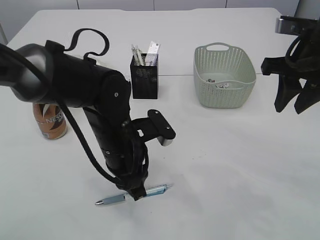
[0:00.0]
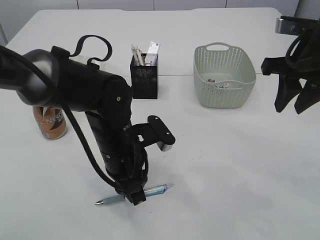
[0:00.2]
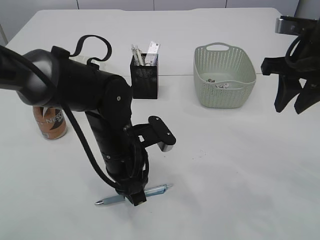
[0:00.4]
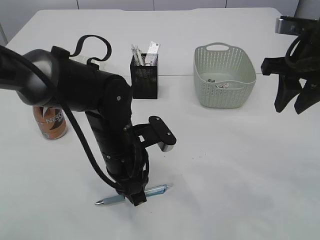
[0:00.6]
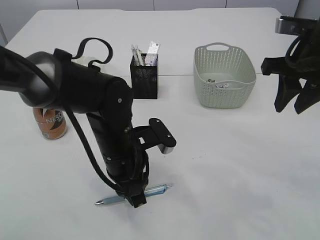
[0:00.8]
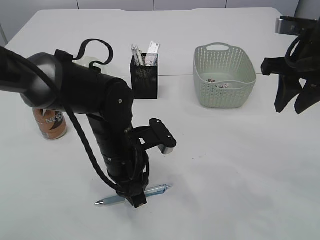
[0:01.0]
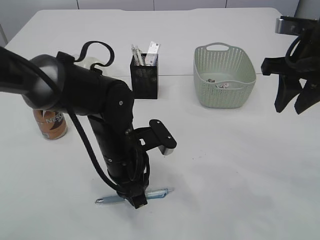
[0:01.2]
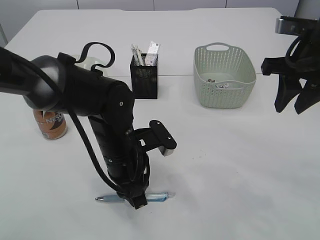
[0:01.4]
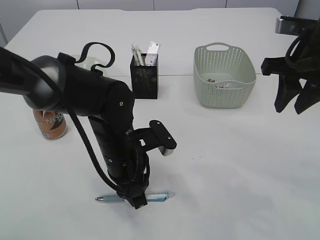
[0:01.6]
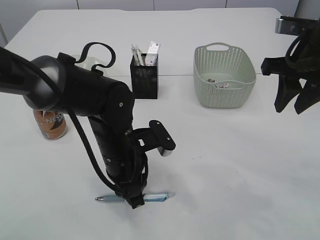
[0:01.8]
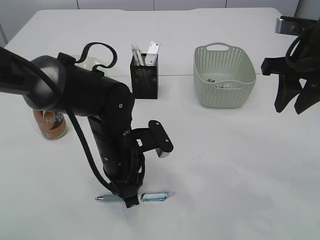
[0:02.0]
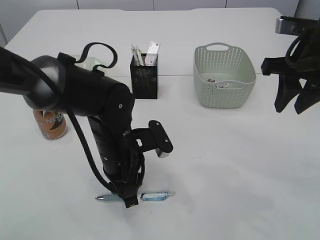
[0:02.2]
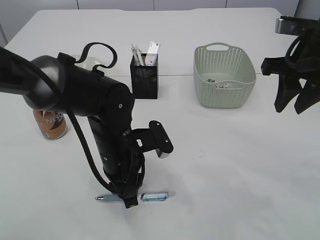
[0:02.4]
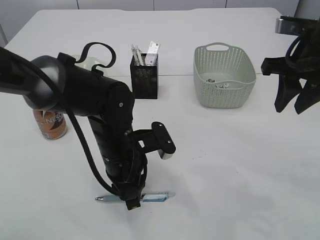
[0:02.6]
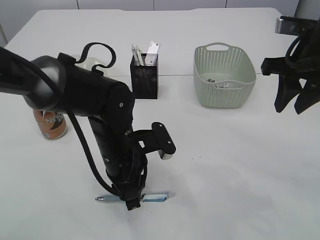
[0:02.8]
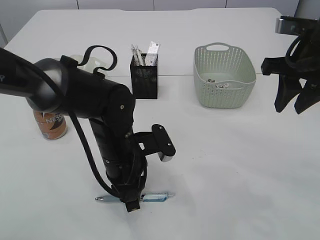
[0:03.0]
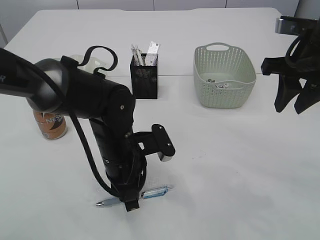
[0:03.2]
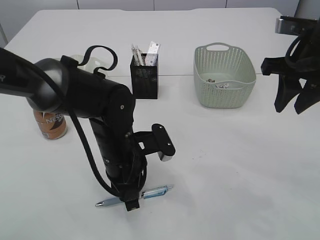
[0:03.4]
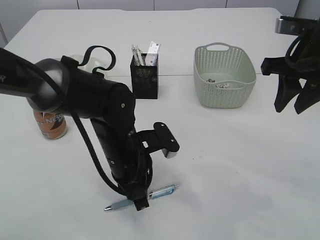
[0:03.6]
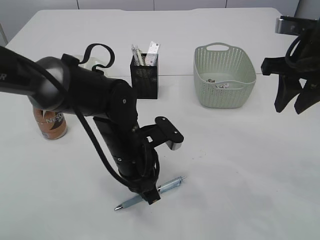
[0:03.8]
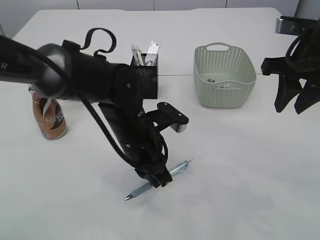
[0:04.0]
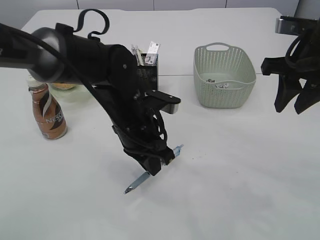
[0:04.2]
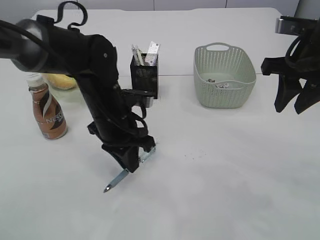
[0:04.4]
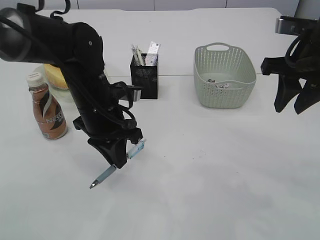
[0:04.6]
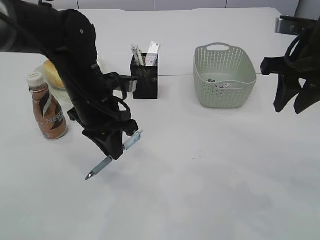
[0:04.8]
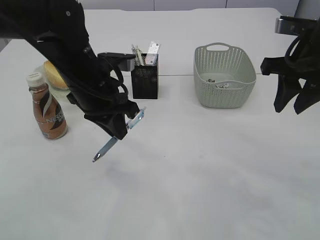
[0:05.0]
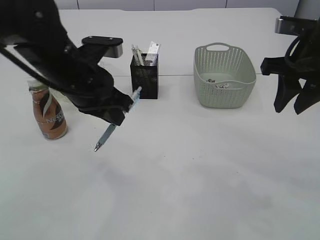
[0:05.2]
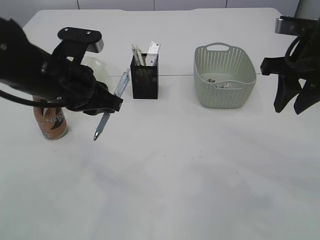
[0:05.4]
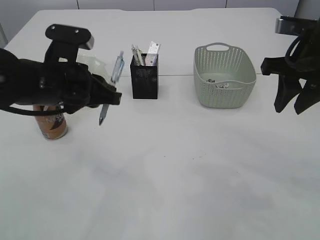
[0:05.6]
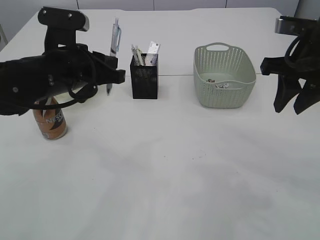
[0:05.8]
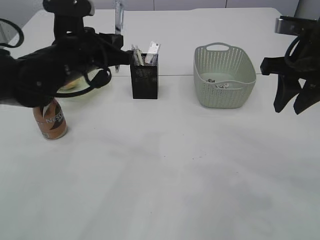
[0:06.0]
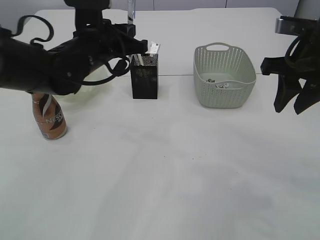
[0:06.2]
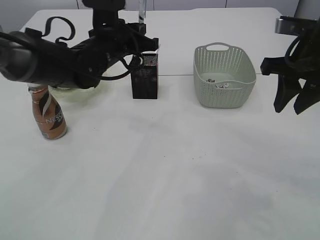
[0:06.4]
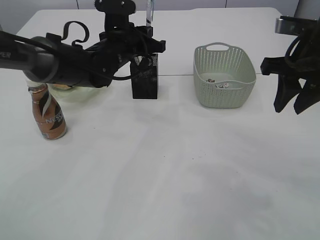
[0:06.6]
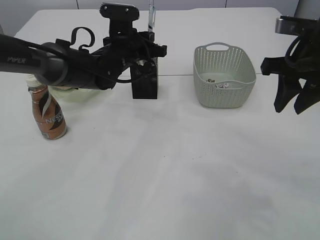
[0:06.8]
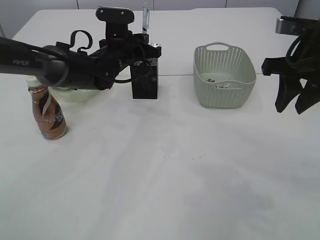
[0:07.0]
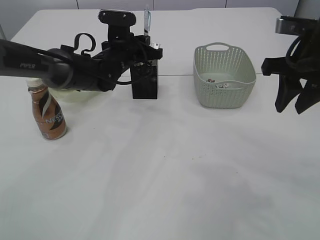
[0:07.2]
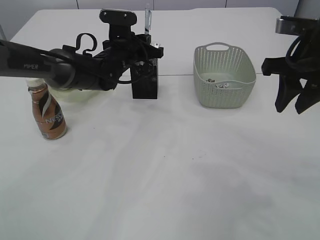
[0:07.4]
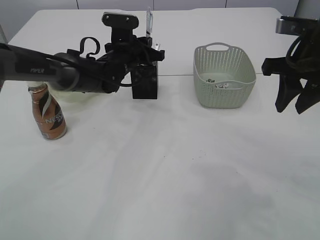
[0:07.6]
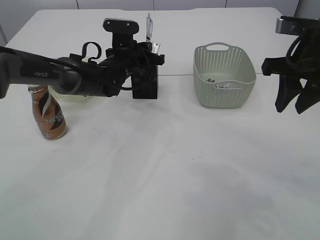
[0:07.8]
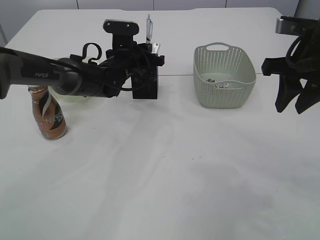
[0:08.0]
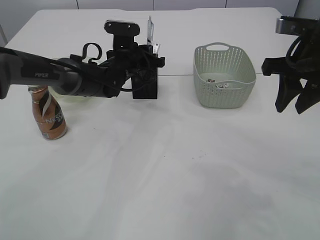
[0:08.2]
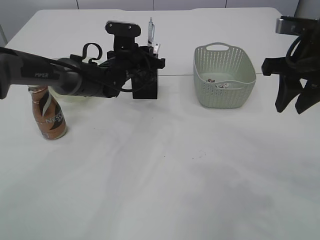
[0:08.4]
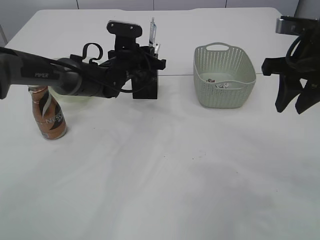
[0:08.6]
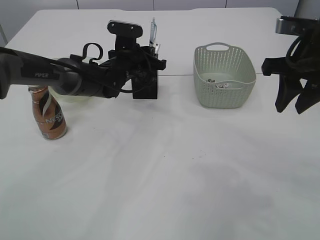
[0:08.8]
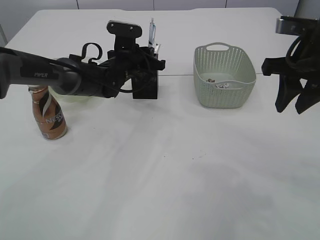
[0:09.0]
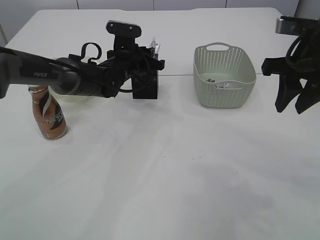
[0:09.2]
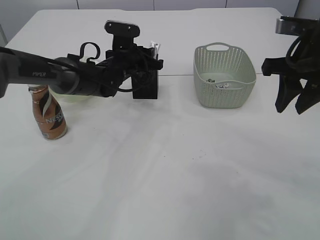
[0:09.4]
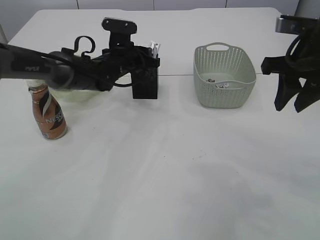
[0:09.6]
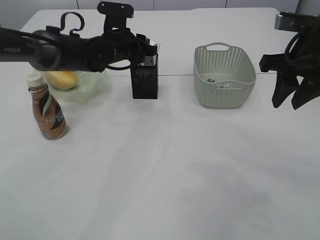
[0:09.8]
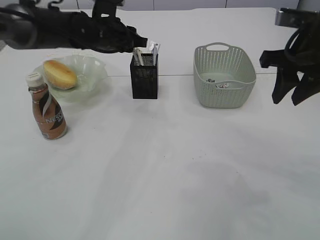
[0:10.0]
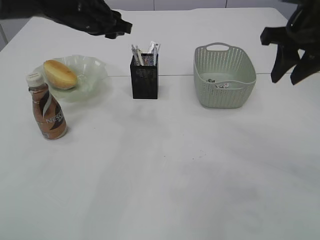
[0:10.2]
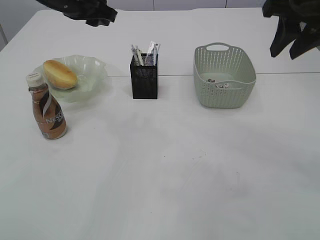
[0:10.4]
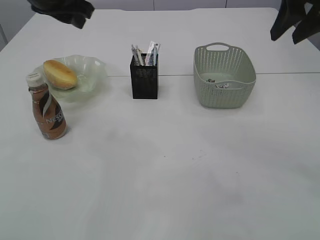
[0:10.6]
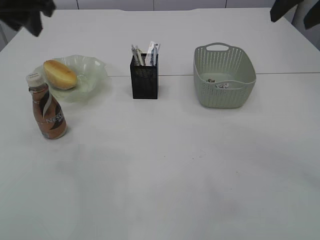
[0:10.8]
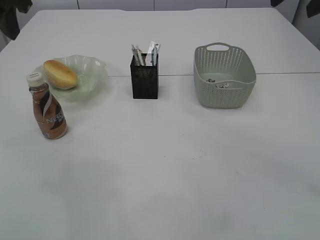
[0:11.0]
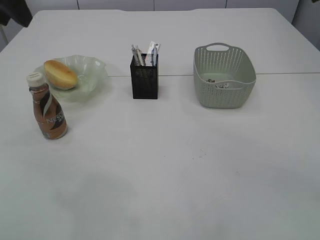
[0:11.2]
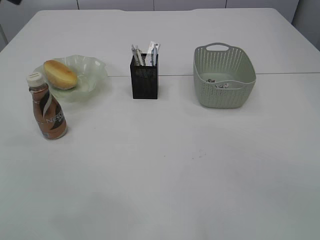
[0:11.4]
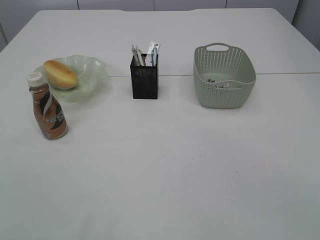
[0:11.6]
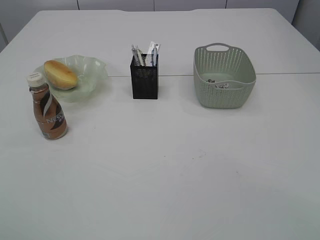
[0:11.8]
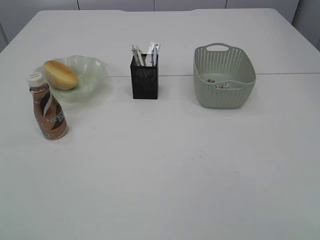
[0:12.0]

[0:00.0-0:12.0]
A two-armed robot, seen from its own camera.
Step, 0.0 to 4.6 s: Pick up the pen with left arm.
Step, 4.8 to 10.4 s: Place the pen into the pen holder.
0.0 to 3.0 s: The grippers move only a little.
3.0 to 4.4 s: The left gripper ends up roughly 5 cm from where it was.
4.4 to 6.0 s: The left gripper moves upward and to the left, approximately 10 cm.
6.0 to 7.6 s: The left gripper heads forward and downward, covering some 15 cm.
7.6 to 9.0 s: The grippers move only a little.
9.0 to 10.4 s: The right gripper is displaced upward by approximately 5 cm; the left gripper goes approximately 20 cm upward and to the left, and opens.
10.4 to 12.0 s: The left gripper moves backward and upward, about 35 cm, while the right gripper moves backward, roughly 25 cm, and opens up.

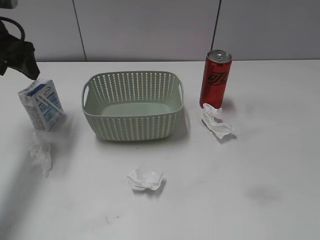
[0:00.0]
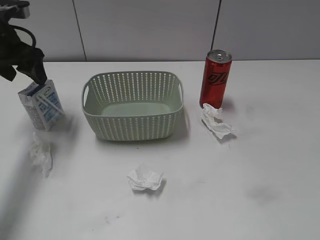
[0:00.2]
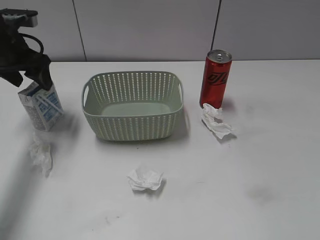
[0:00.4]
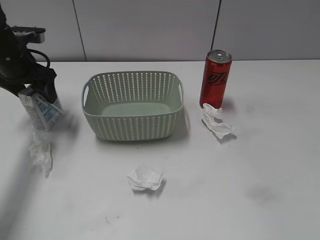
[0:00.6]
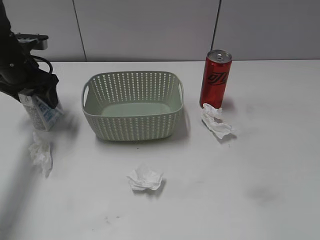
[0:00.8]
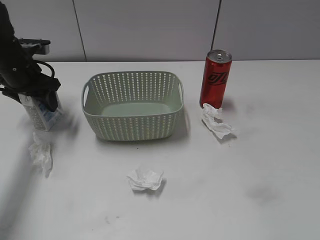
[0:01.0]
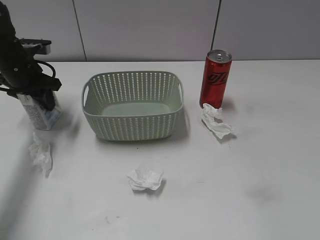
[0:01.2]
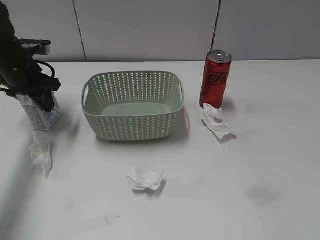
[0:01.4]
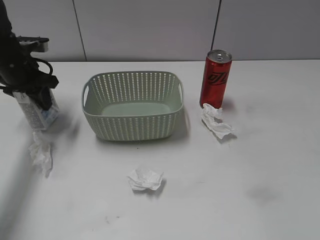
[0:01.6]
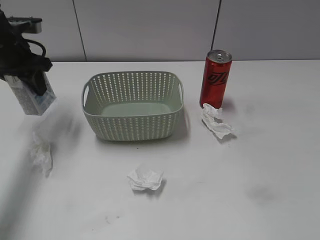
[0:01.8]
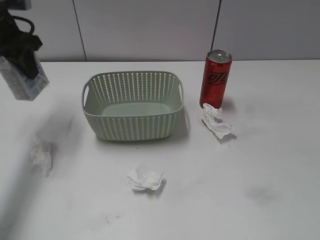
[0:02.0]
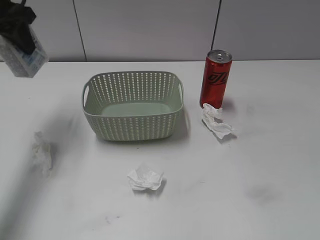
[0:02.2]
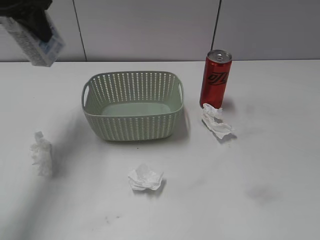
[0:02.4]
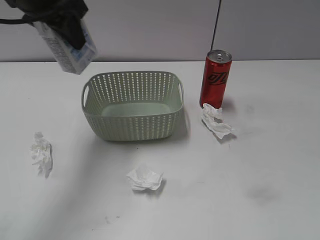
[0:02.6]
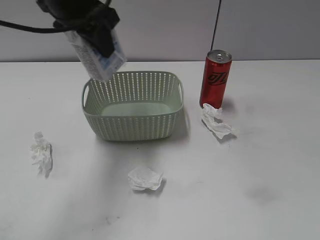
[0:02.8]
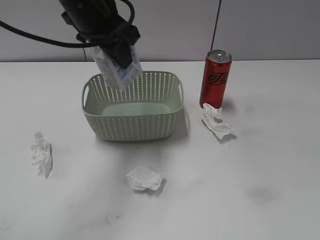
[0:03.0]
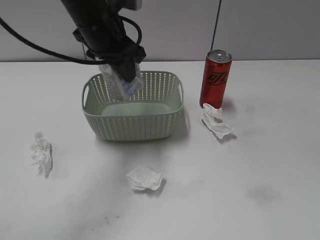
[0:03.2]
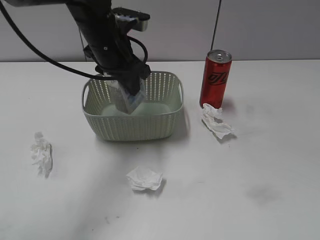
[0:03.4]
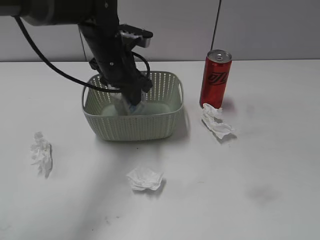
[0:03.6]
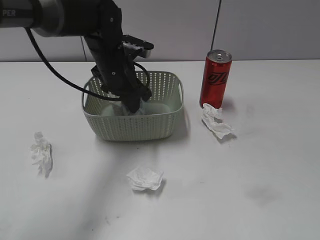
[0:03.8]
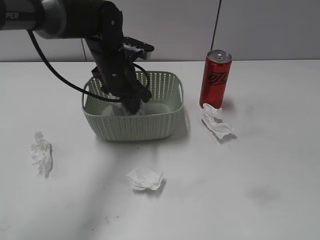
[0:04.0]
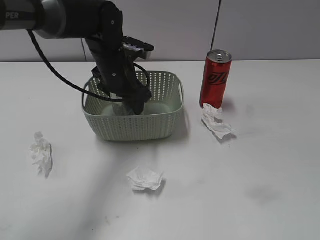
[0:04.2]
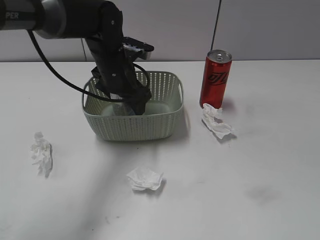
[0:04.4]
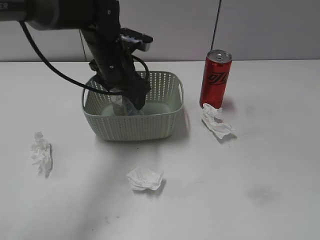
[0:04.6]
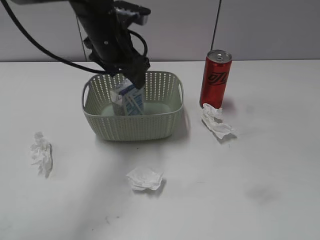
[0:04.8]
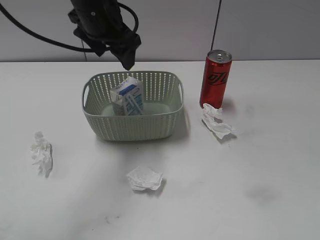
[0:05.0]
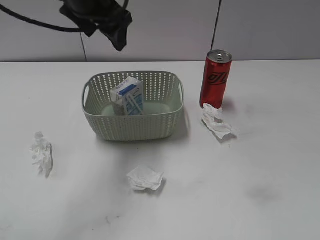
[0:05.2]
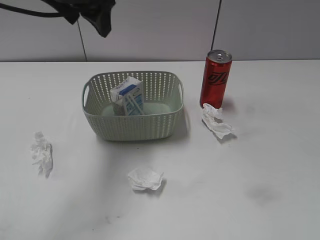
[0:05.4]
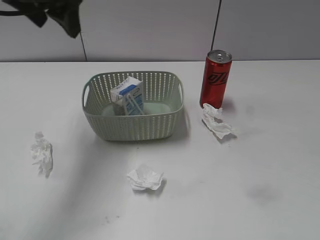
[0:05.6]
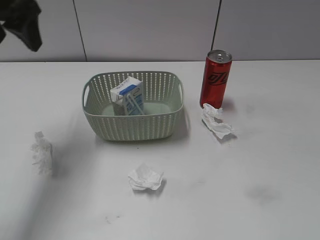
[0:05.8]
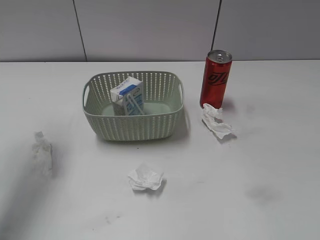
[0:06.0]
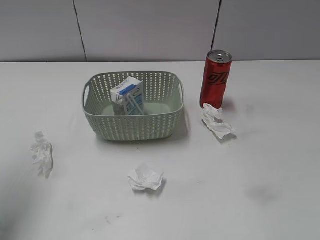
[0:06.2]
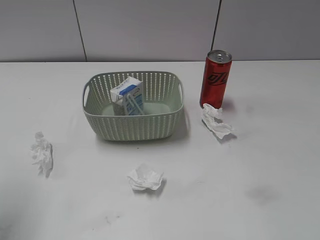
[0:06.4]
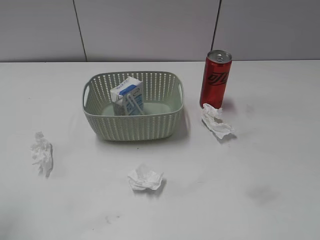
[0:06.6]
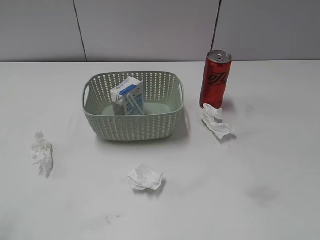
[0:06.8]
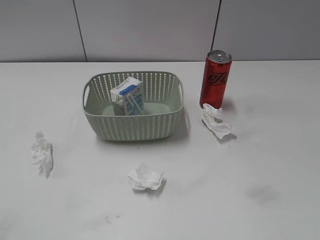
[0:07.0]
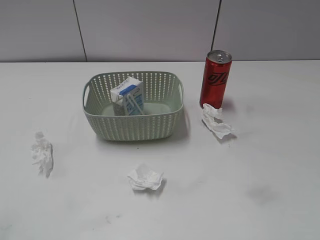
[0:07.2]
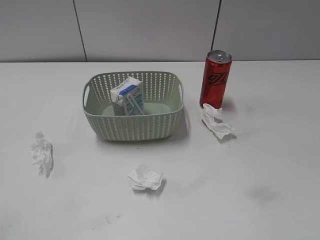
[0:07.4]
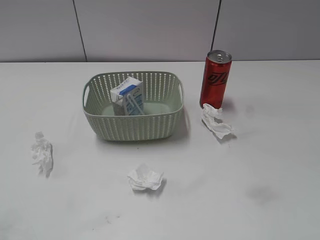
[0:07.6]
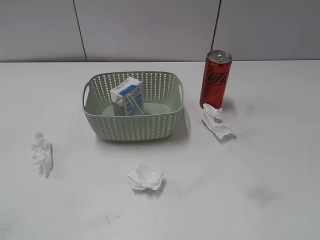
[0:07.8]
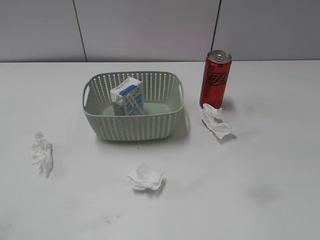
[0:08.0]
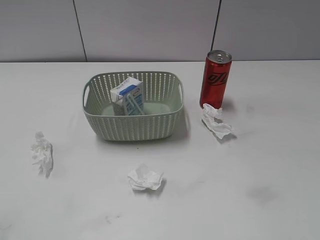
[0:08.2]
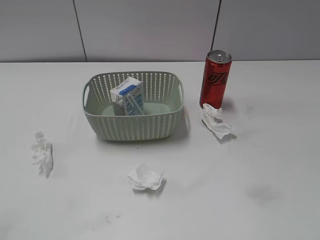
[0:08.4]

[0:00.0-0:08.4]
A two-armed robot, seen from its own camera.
Step, 0.0 to 1.2 s: Grasp the milk with left gripper.
Step, 1.4 to 5.0 s: Place the milk in the basket with left gripper.
0.0 to 1.4 s: The left gripper is displaced downward and forward by roughly 10 cm, and closes up.
1.4 to 2.8 s: The left gripper goes about 25 cm upward, to the right and backward.
2.8 to 4.2 s: The left gripper moves downward, some 15 cm, and opens its fingers.
4.2 to 5.6 s: The left gripper travels upward and to the left by about 20 cm.
5.6 to 7.0 s: The left gripper moves backward and to the left, roughly 35 cm.

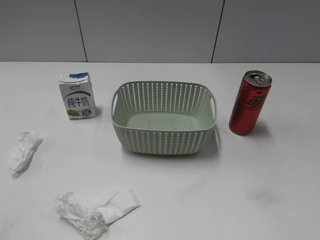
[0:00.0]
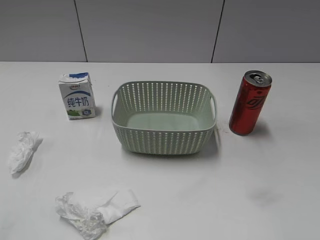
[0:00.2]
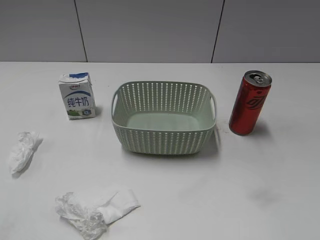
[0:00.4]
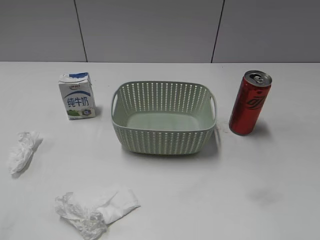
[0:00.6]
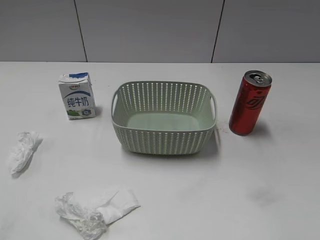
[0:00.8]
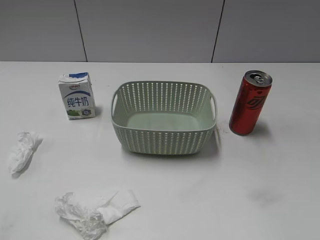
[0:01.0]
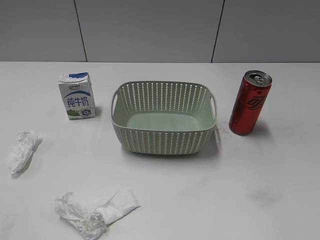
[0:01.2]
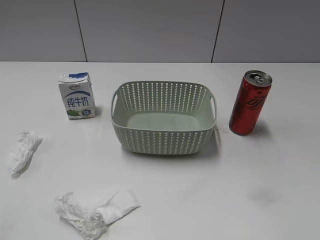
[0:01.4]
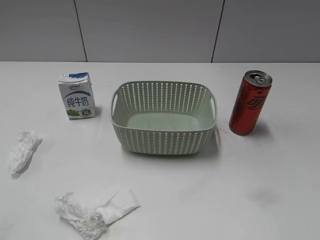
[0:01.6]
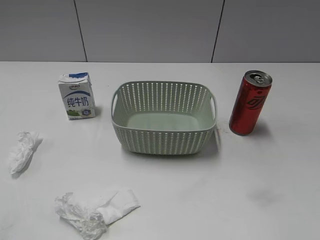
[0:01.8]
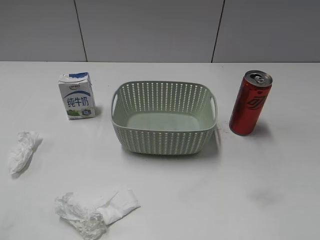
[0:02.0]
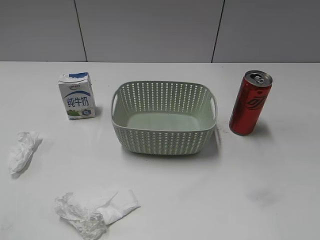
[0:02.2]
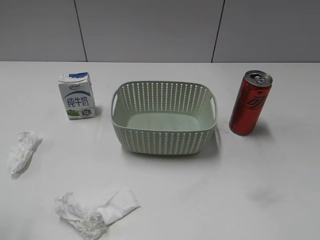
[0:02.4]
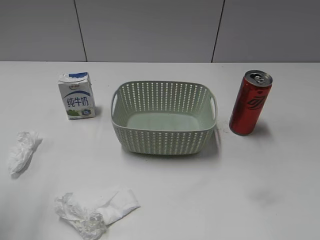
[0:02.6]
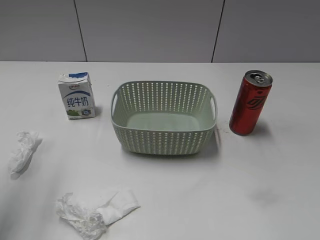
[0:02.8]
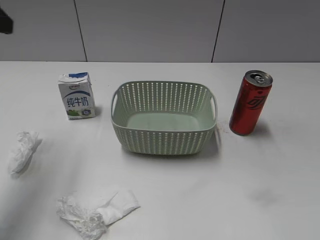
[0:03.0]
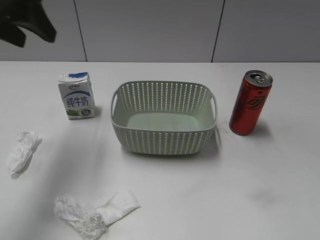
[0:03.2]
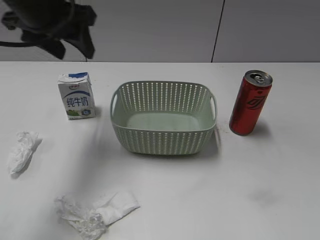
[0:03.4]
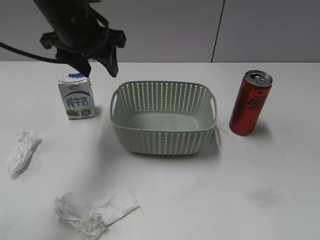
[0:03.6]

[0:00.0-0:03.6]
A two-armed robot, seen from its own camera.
1.8 to 3.6 s: The left gripper shifts approximately 40 cm forward and to the right.
